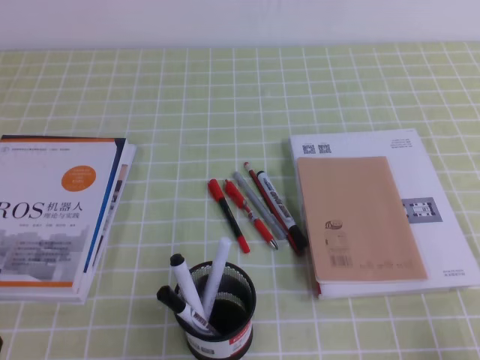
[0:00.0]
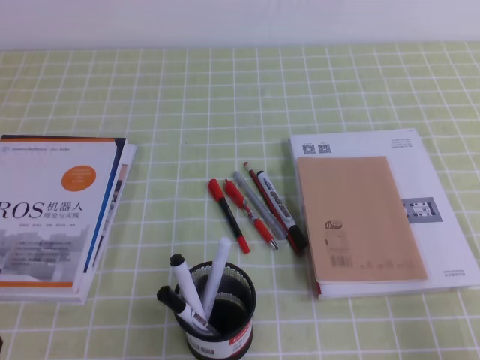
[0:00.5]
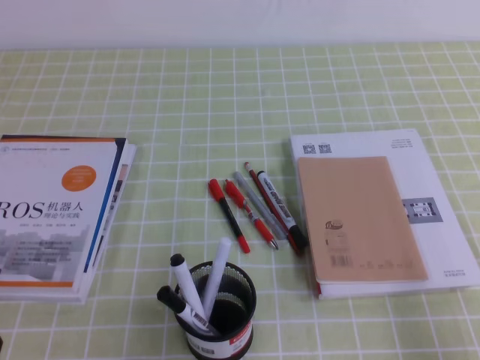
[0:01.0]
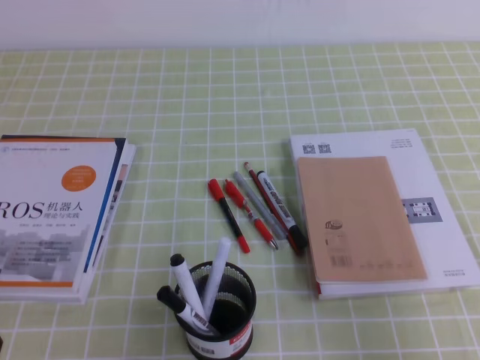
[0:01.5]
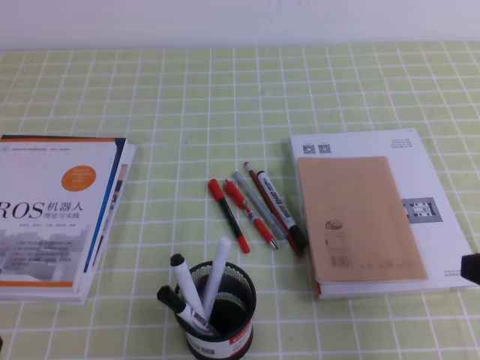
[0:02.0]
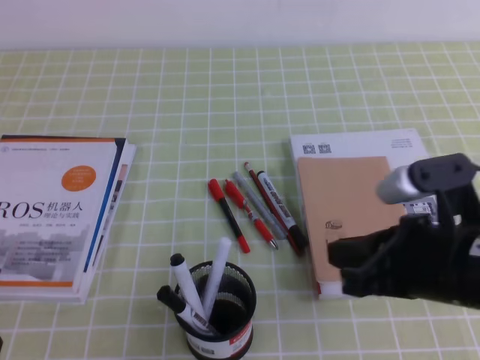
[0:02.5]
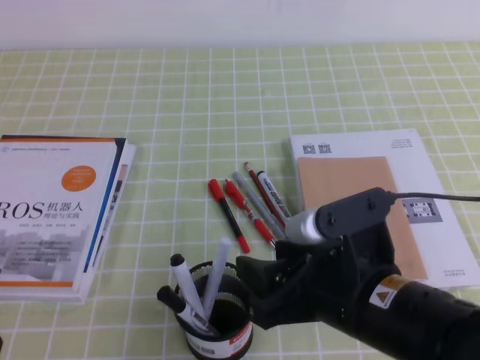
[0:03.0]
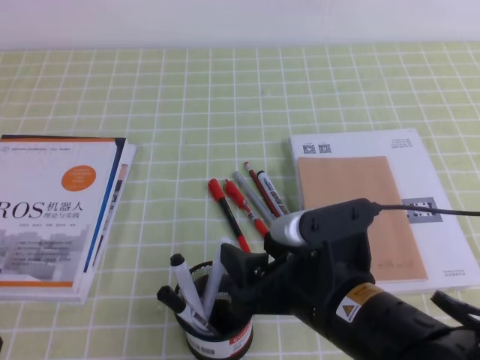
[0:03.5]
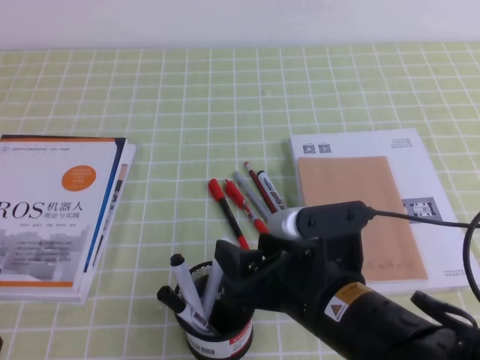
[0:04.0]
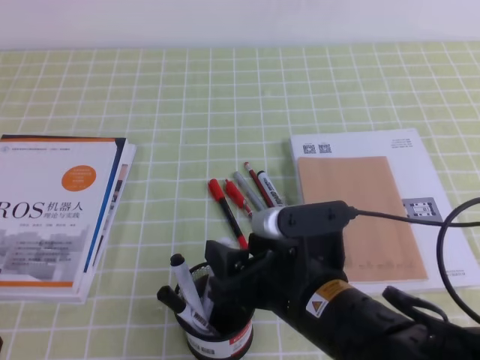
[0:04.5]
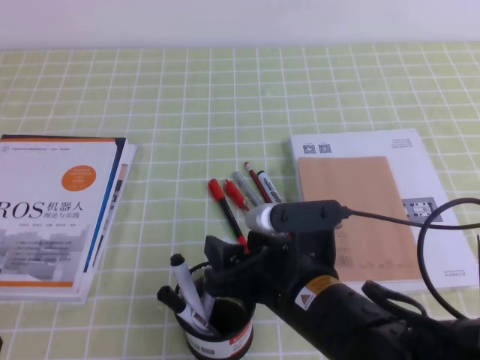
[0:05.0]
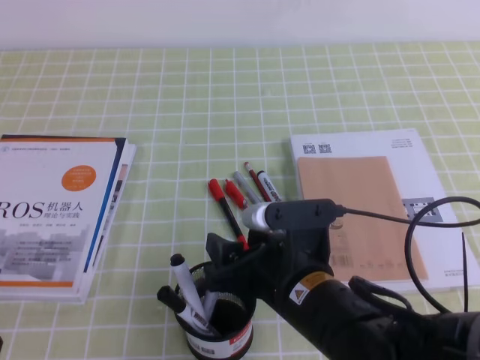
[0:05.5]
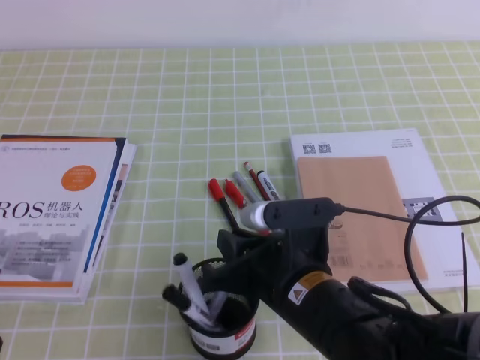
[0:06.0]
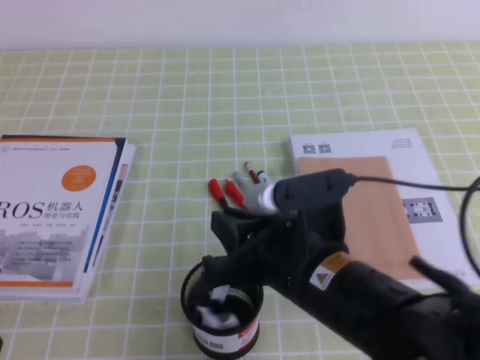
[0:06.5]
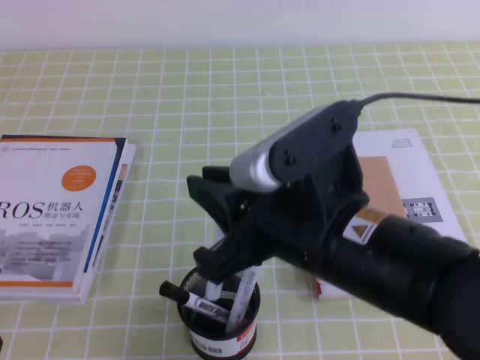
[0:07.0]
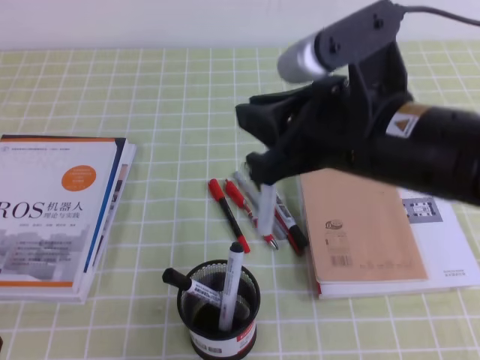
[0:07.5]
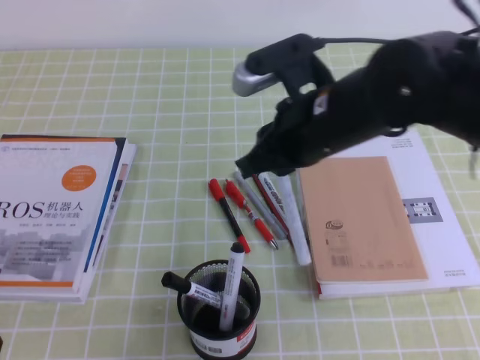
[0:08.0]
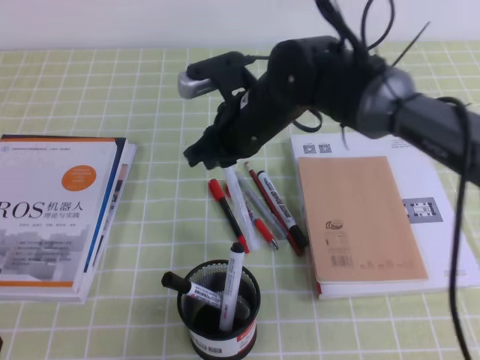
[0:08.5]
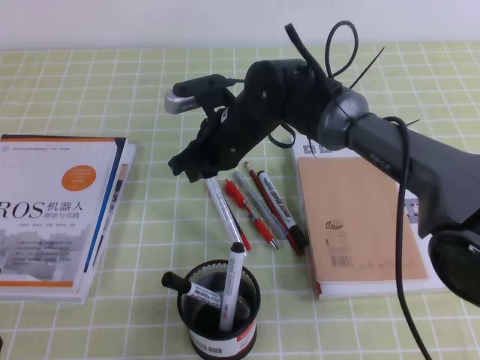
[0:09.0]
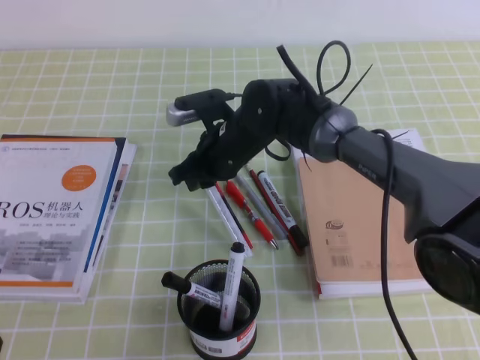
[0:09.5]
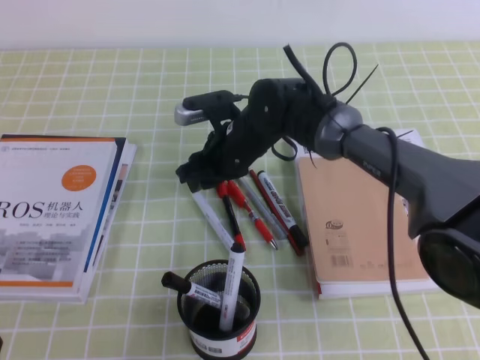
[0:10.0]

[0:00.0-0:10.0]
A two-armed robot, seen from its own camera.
0:00.0 to 0:02.0: The right gripper heads upward and forward, covering about 15 cm.
0:02.0 to 0:04.0: The right gripper goes some 20 cm to the left, and opens.
0:04.0 to 0:06.0: The right gripper closes up.
0:06.0 to 0:08.0: The right gripper moves upward and forward, approximately 15 cm.
0:08.0 to 0:10.0: The right gripper heads downward, forward and to the left, covering some 20 cm, and opens its fingers.

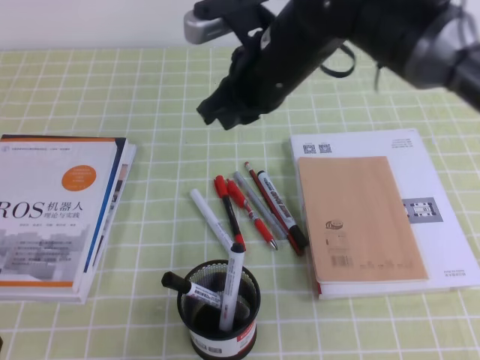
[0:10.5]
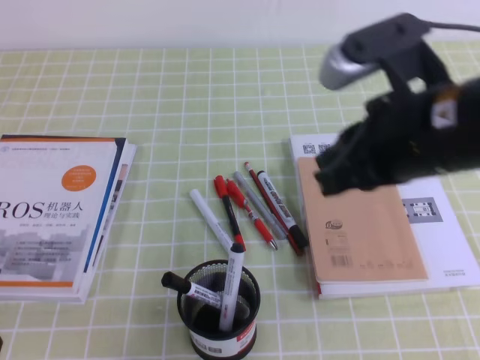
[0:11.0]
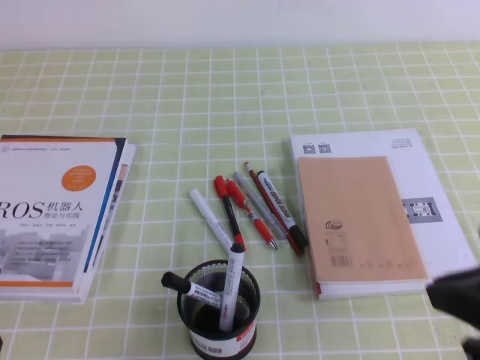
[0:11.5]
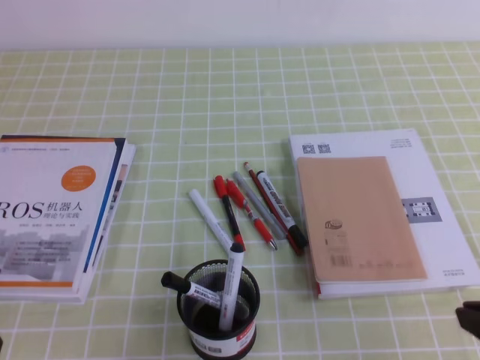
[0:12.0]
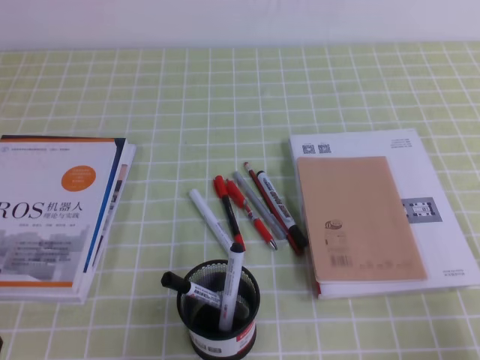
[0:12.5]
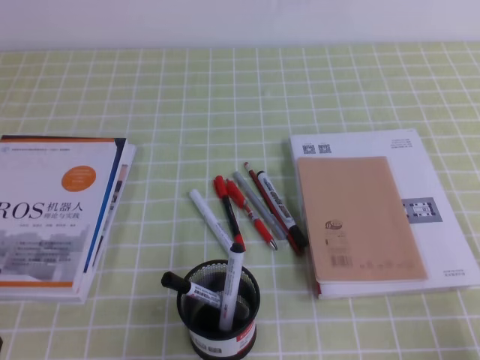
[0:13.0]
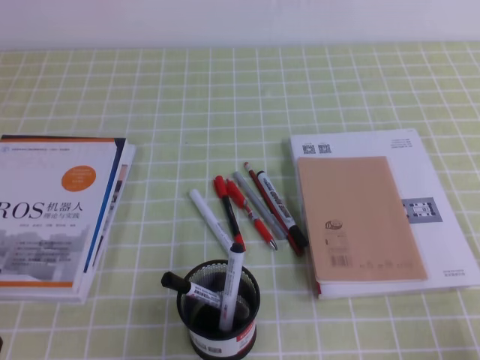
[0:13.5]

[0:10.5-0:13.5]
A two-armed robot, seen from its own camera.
Step, 0:10.5 to 0:13.5: Pick up the pen from the pen holder.
0:10.5 to 0:12.0: The right gripper goes some 35 cm backward and to the right.
0:12.0 to 0:13.5: The right gripper heads downward and to the right, covering about 10 cm.

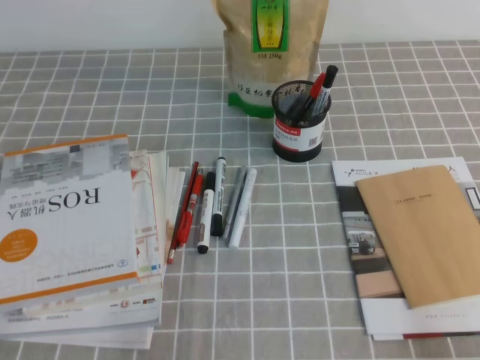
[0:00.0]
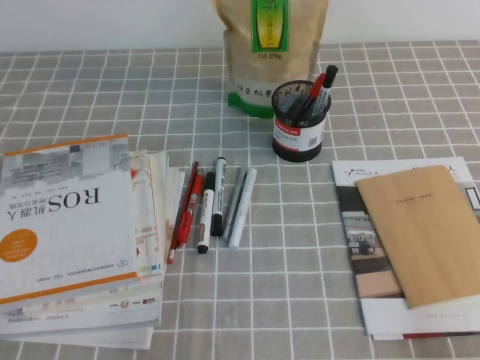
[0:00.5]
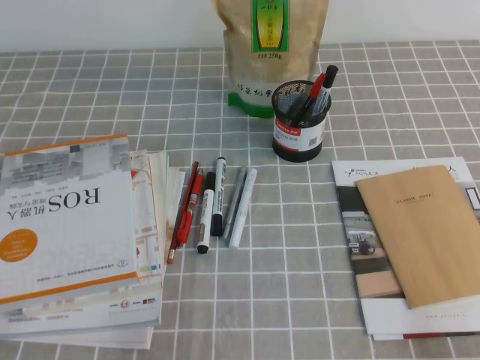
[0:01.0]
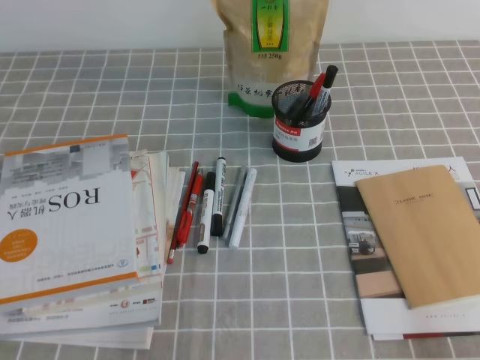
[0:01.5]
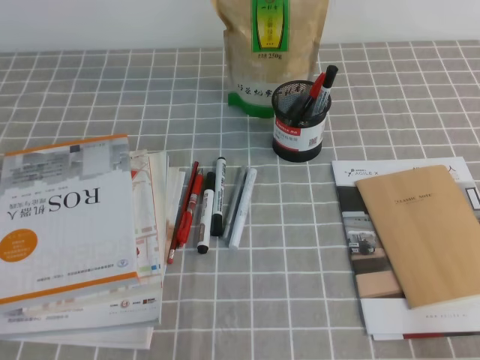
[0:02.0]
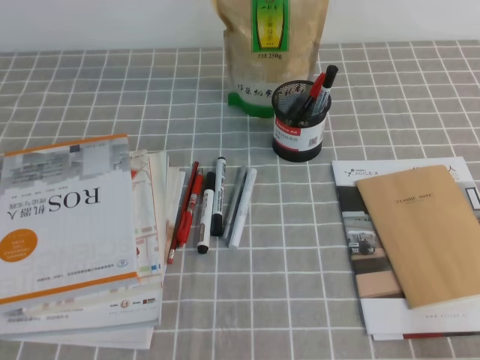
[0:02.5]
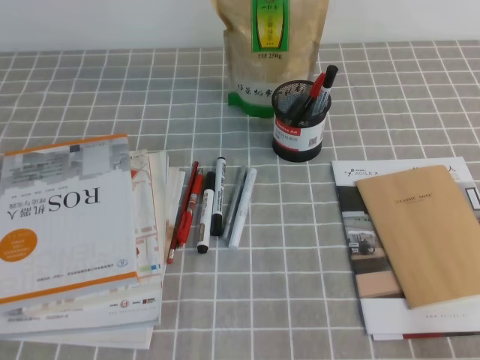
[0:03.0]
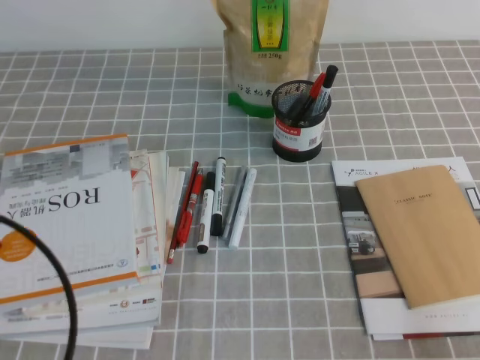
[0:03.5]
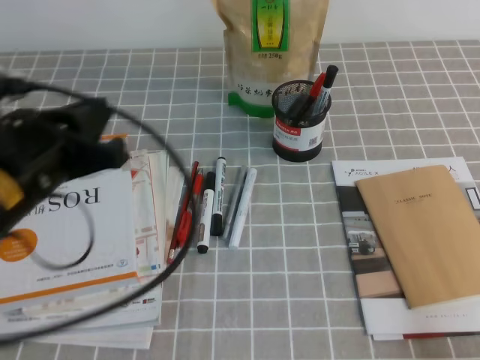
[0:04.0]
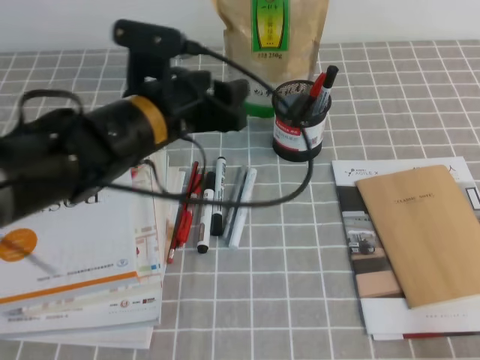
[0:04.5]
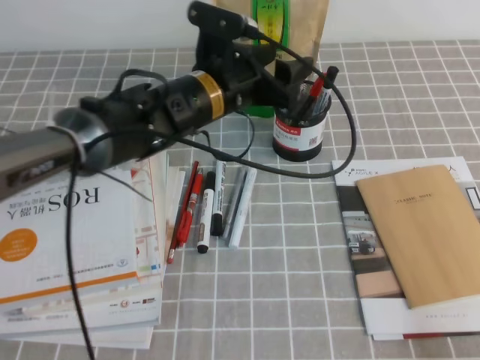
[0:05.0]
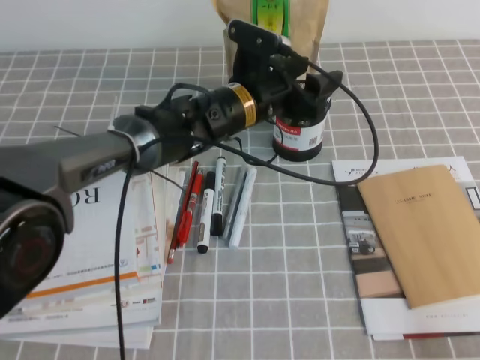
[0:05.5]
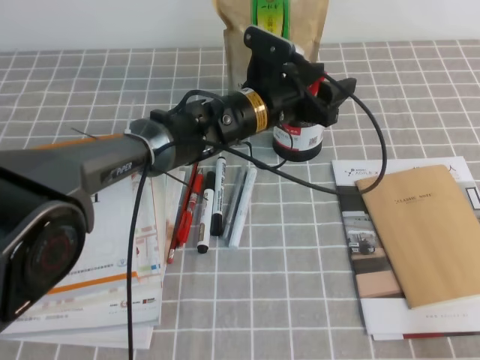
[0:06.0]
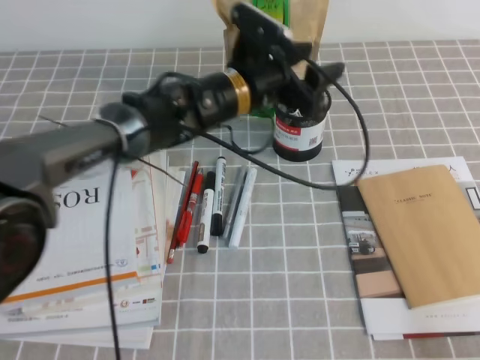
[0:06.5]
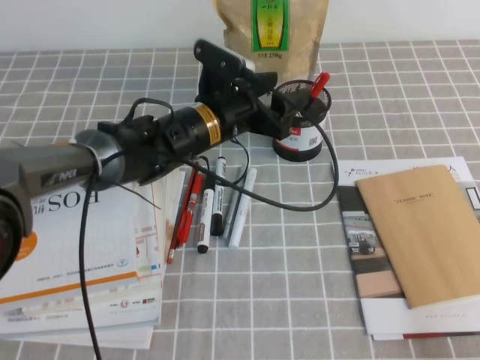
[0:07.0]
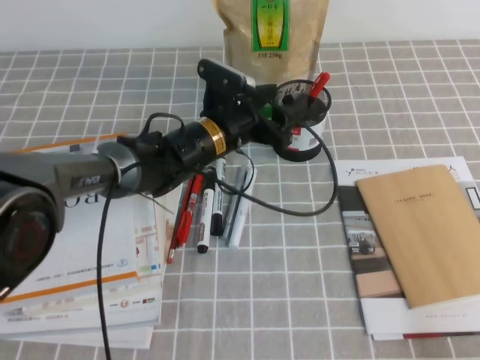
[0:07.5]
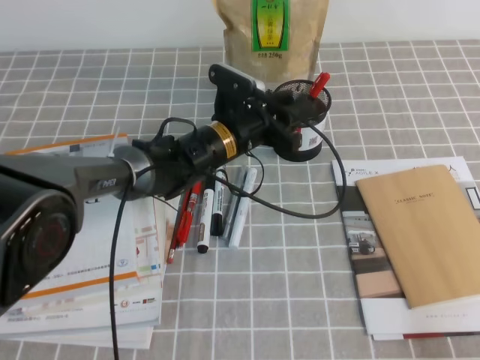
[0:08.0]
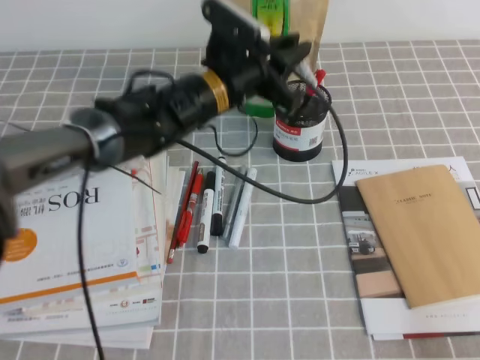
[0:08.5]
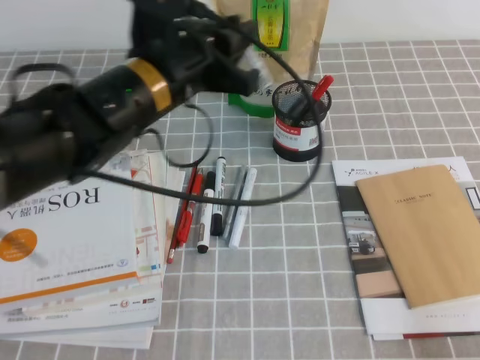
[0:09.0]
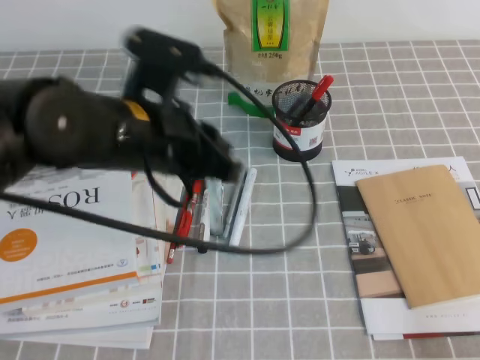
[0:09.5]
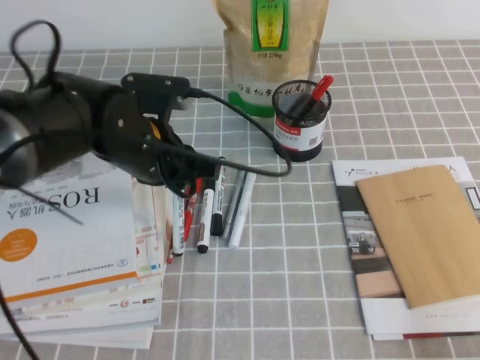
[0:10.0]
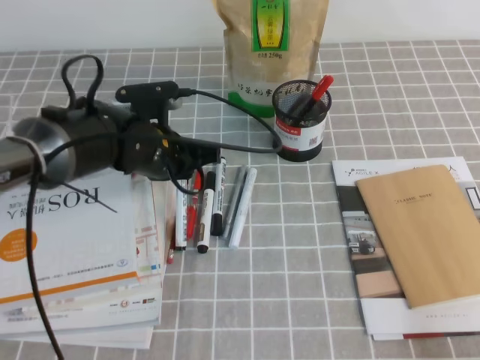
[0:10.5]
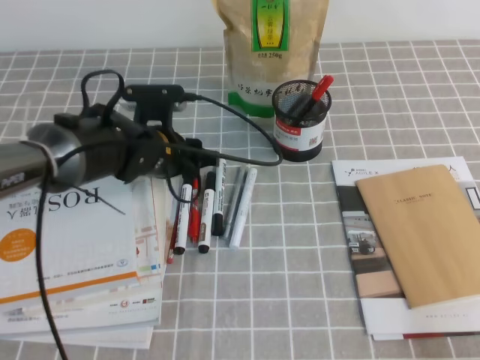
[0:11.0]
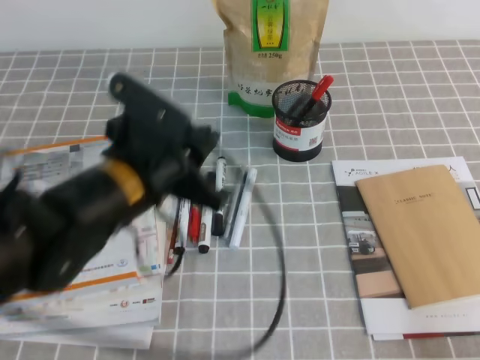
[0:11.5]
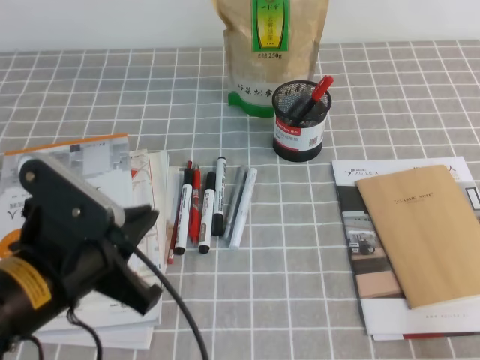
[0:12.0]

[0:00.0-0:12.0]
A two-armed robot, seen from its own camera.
0:02.0 to 0:04.0: The left gripper shifts approximately 20 cm forward, upward and to the right.
0:04.0 to 0:06.0: The left gripper shifts about 30 cm to the right, forward and downward, and opens.
0:06.0 to 0:08.0: The left gripper shifts by some 5 cm, and closes up.
0:08.0 to 0:10.0: The left gripper is displaced backward, upward and to the left by some 15 cm, and closes.
0:10.0 to 0:12.0: The left gripper goes roughly 15 cm backward and to the left, and opens and closes again.
